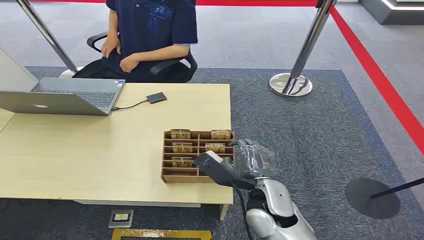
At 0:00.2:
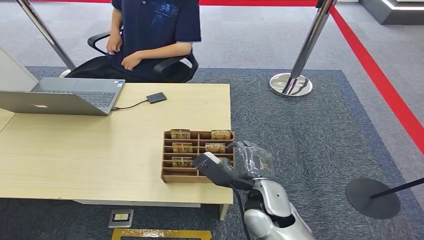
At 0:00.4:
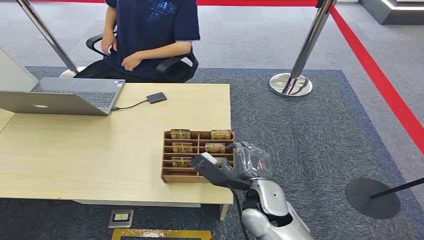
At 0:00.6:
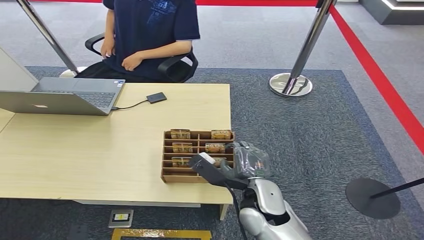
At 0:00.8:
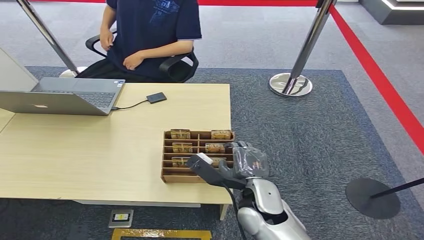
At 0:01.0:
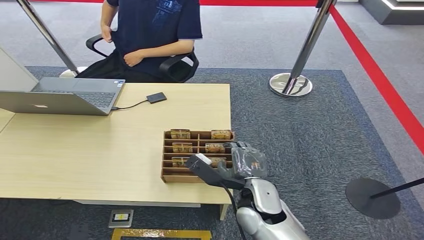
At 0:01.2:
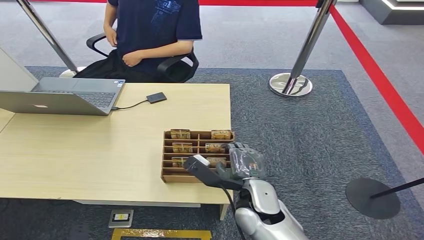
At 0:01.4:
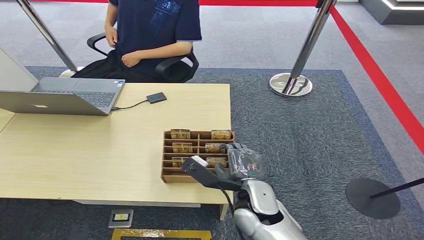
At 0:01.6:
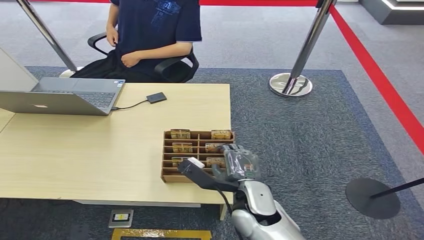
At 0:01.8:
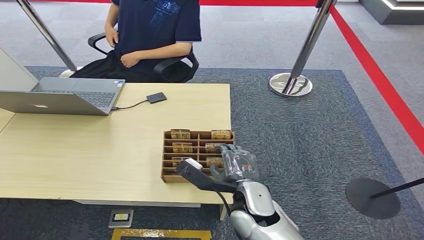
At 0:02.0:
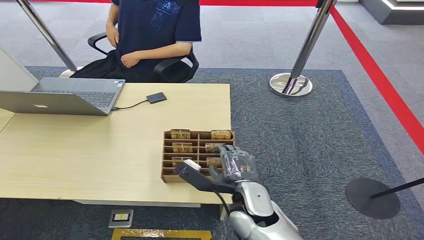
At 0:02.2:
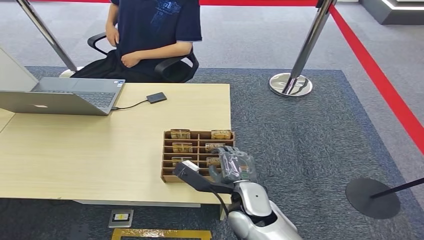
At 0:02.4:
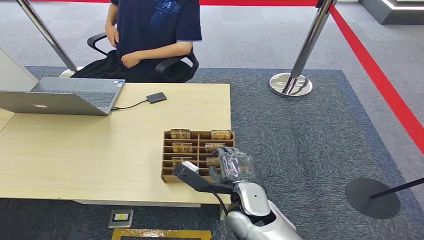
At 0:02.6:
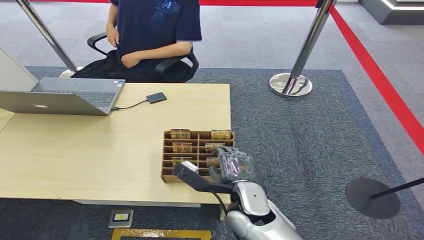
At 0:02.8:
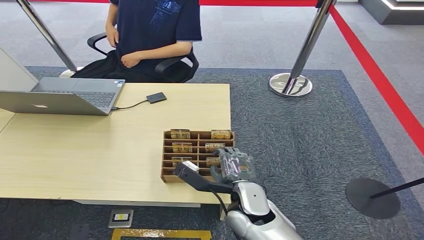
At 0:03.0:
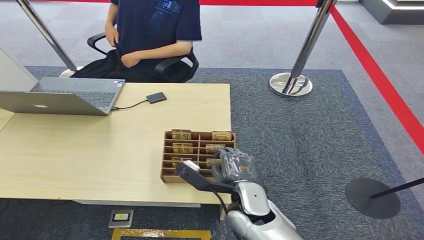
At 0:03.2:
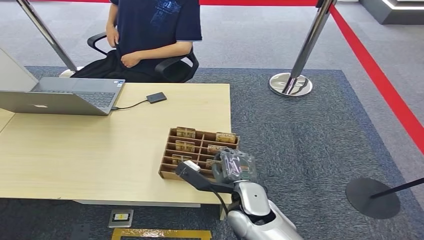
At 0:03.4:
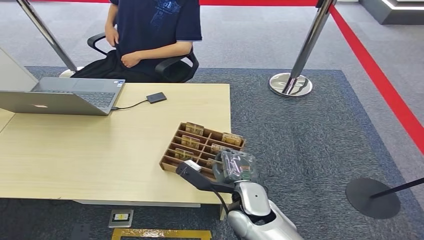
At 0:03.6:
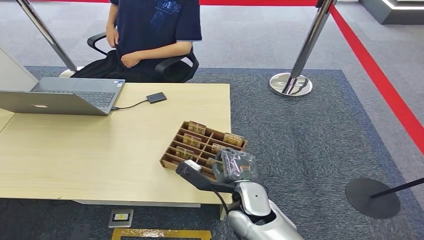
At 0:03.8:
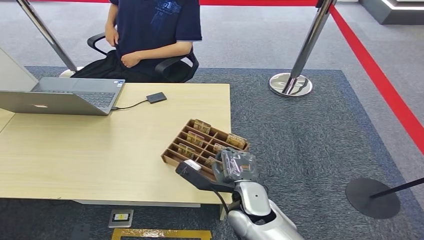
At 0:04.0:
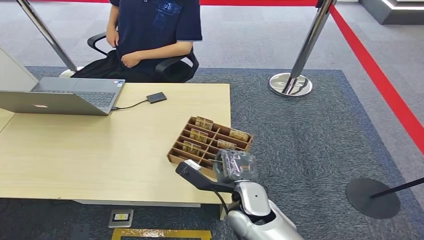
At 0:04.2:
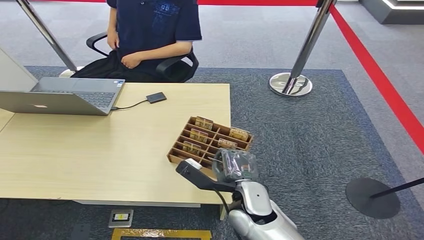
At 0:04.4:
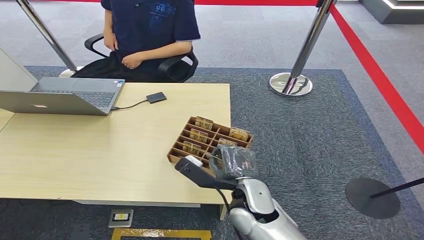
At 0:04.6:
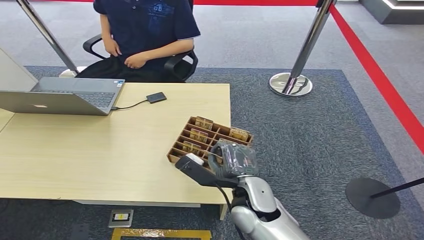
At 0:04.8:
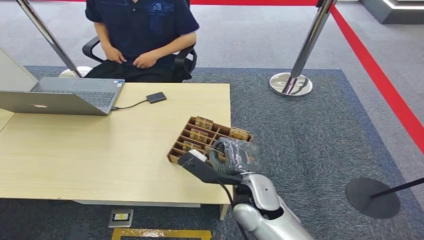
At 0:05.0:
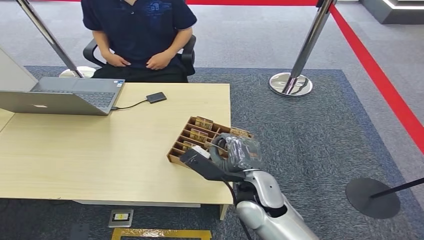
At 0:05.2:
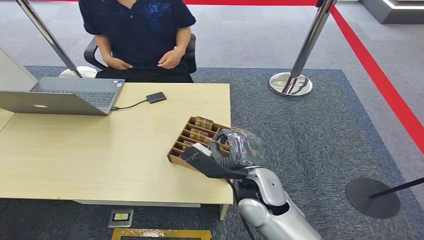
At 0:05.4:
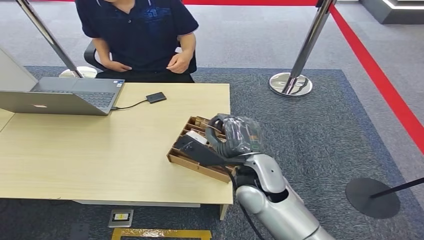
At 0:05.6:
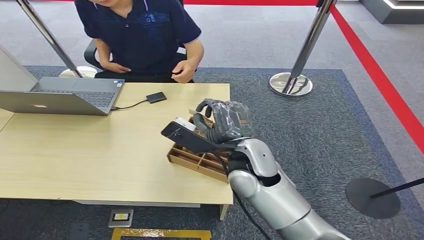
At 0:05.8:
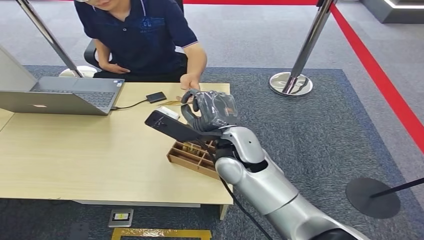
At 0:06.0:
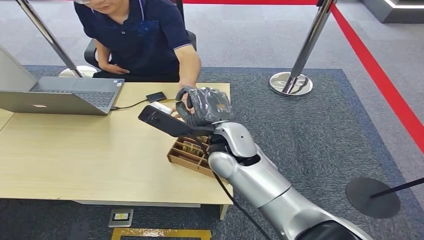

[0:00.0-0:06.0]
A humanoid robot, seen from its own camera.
Step, 0:00.0 to 0:05.4: Pick up the key card from the card box.
Step, 0:05.6 to 0:06.0: Hand the key card to the target.
0:01.6 to 0:04.4: The hands move only a little.
0:04.4 to 0:06.0: The right hand is displaced upward and forward by roughly 15 cm.

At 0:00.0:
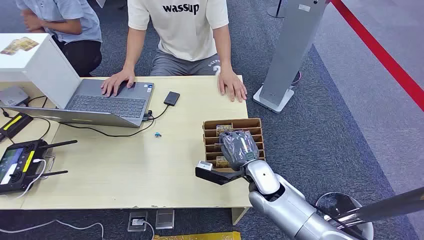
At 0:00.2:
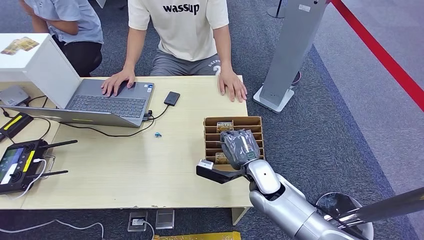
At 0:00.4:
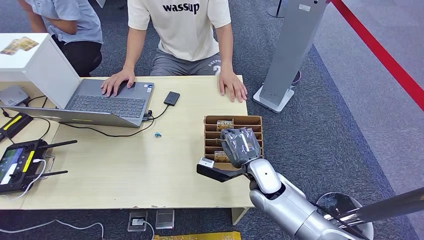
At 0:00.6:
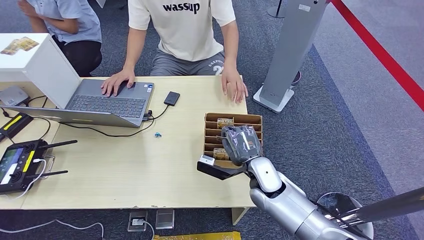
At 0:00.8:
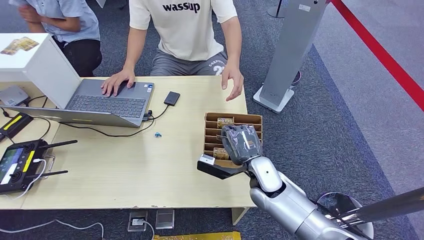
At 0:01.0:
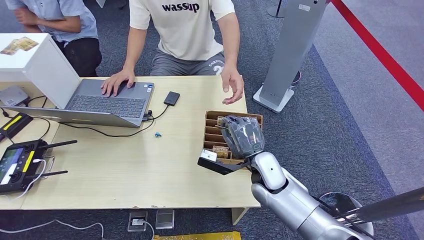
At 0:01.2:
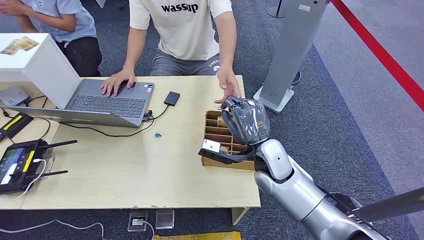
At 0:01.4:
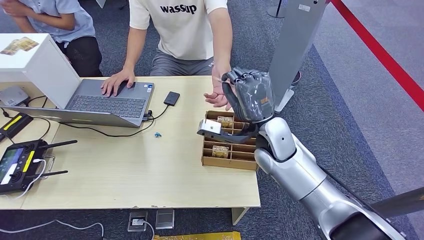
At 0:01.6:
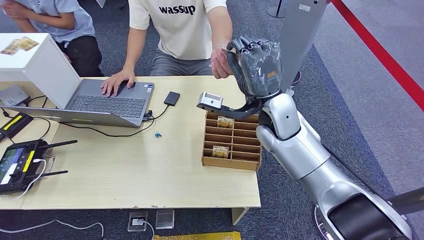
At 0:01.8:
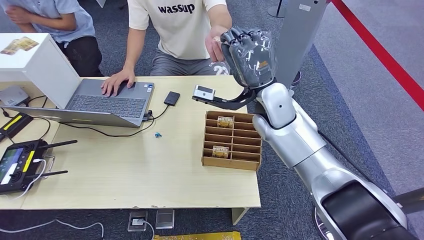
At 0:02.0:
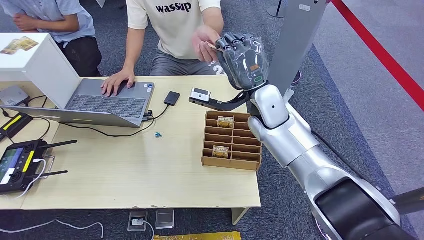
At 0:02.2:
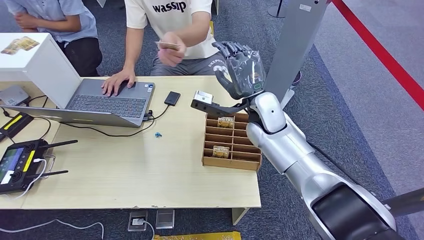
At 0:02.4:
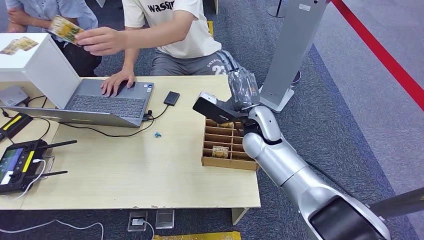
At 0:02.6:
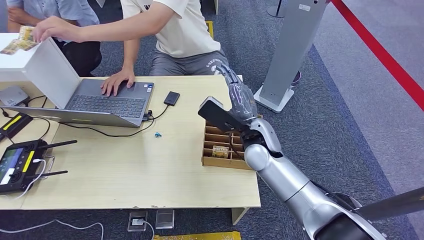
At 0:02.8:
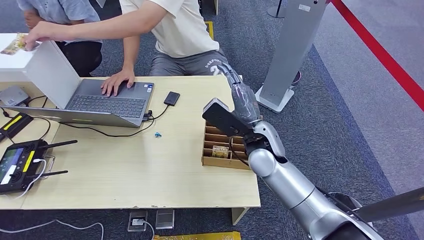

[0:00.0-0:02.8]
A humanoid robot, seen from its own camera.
Step, 0:00.0 to 0:01.2: Pick up the key card from the card box.
Step, 0:01.4 to 0:02.8: Hand the key card to the target.
0:01.4 to 0:02.8: The right hand goes upward and returns, roughly 5 cm each way.
